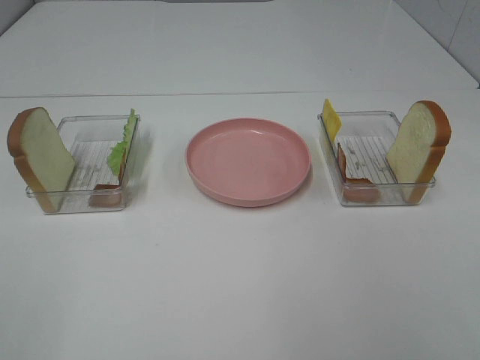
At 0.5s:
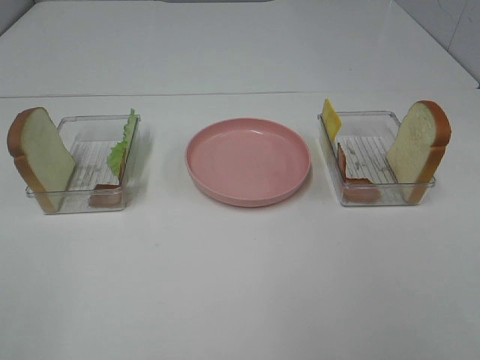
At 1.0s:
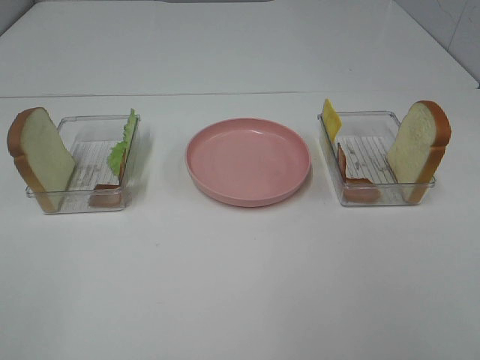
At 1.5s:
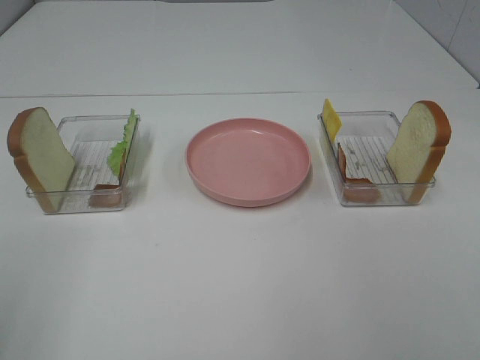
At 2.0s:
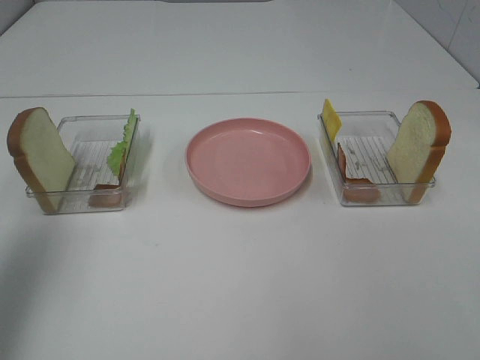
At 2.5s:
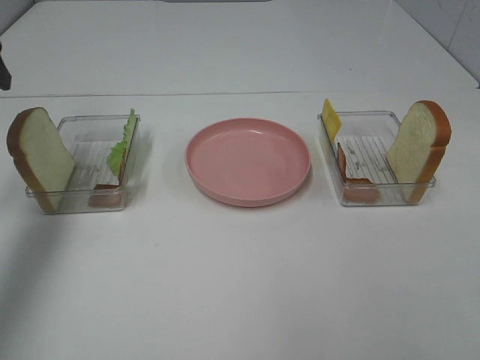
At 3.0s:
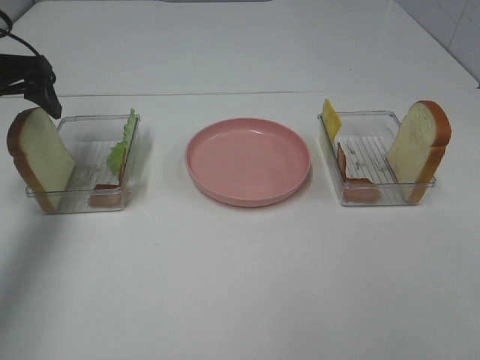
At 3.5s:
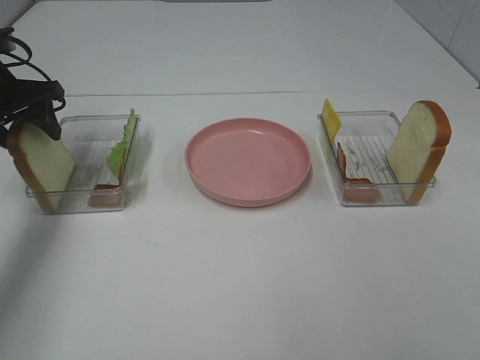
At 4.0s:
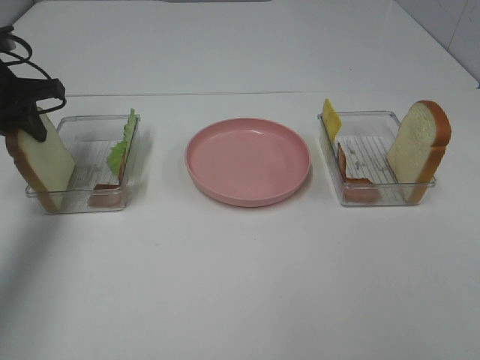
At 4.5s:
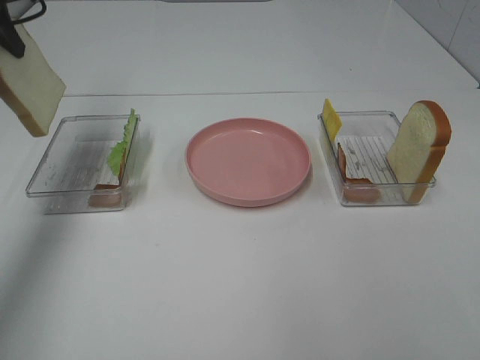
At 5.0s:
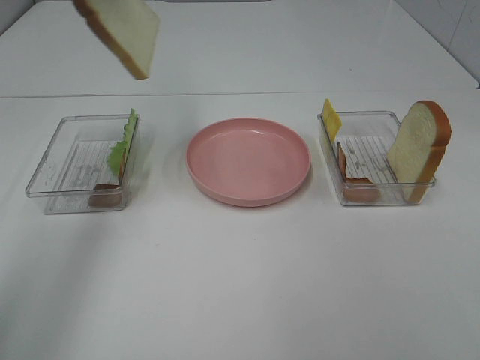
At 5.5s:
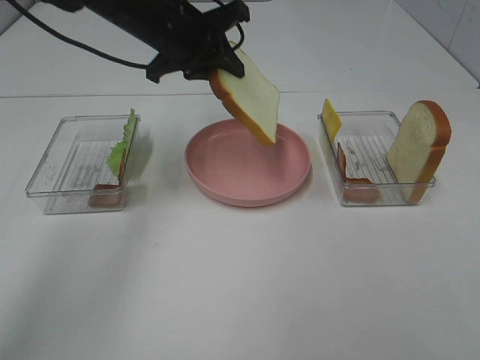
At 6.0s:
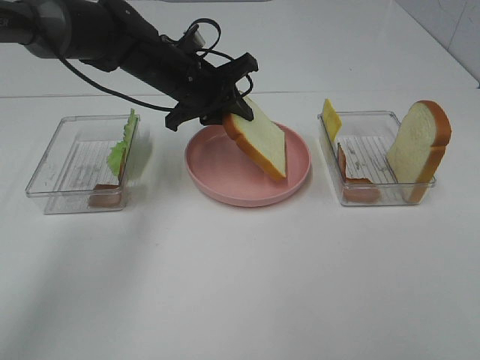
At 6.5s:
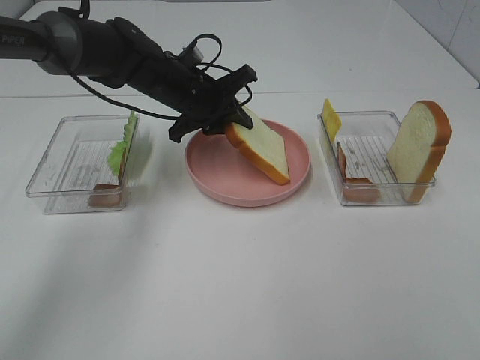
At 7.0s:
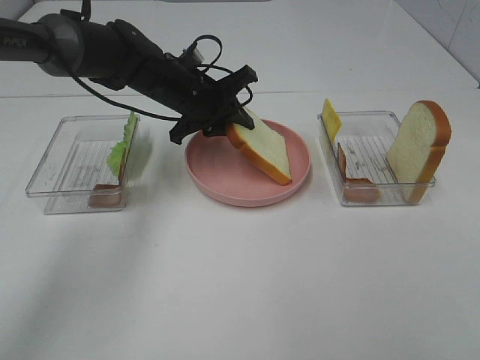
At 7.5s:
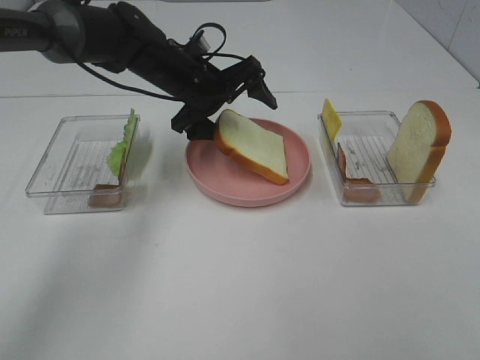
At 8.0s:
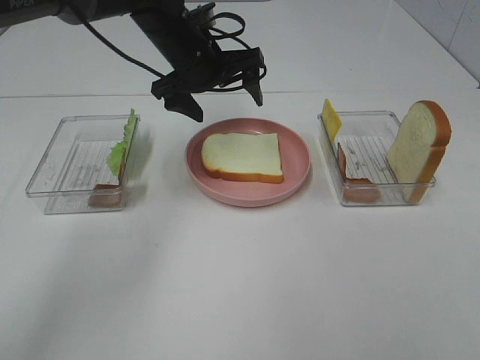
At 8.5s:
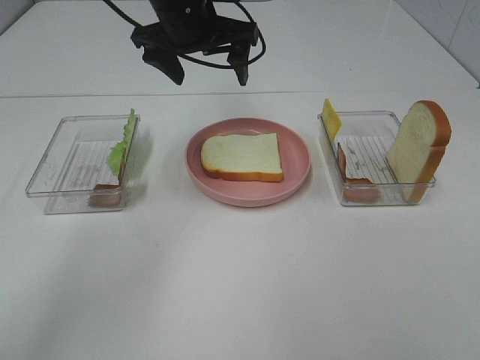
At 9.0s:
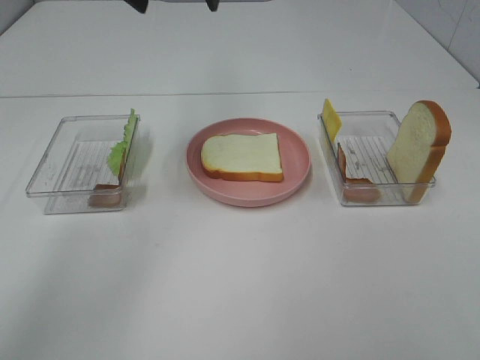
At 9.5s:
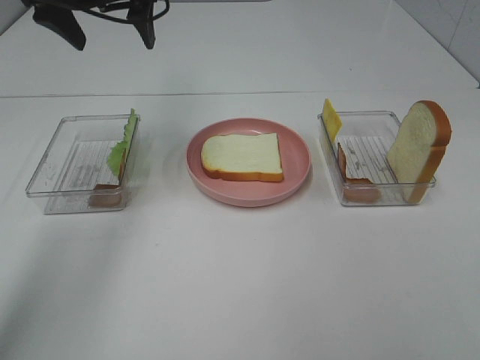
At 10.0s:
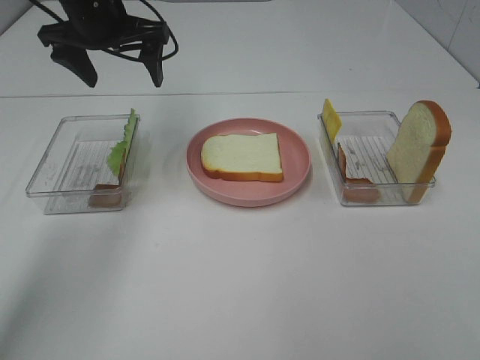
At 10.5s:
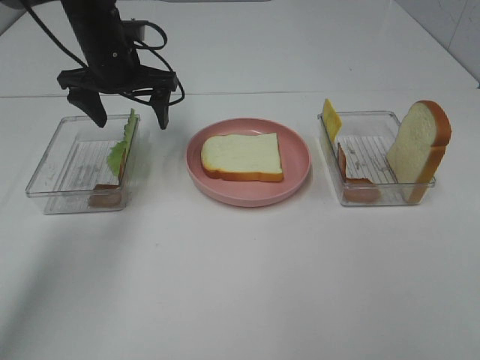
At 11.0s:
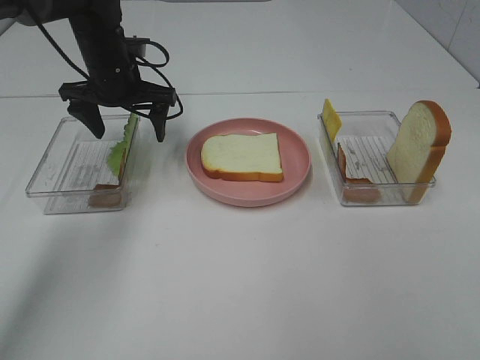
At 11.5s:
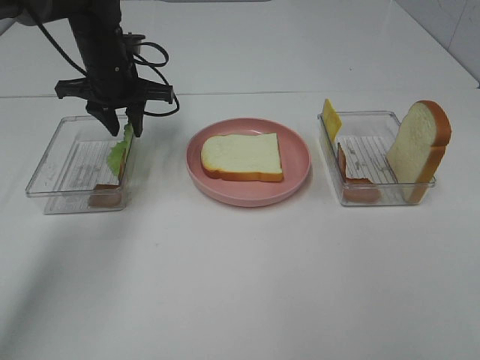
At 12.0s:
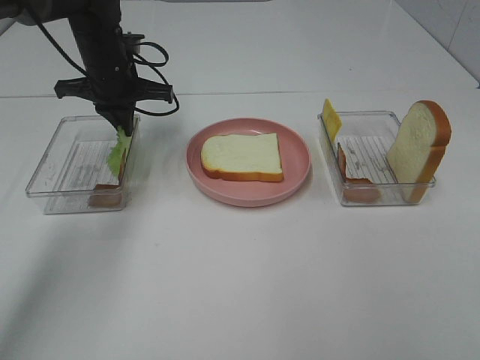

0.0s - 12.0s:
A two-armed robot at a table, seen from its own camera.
Task of the whole recording: Make sandwiches.
Step, 0.0s - 3.5s: Left hand:grab the bread slice.
Step, 4.0s - 8.0s: Left hand:place the bread slice on the plate.
Step, 8.5s - 11.5s: Left hand:grab the lettuce slice.
0.0s - 2.0s: The left gripper moves forward, some 20 cm.
2.0s - 4.0s: The left gripper heads forward and downward, covering about 25 cm, and closes its fingers.
4.0s - 6.0s: The left gripper moves to the right, some 25 cm.
6.0s - 8.0s: The left gripper opens.
8.0s - 10.0s: The left gripper shifts some 10 cm to the left and upward.
10.0s - 12.0s: The left gripper travels downward by some 10 cm, and closes its fingers.

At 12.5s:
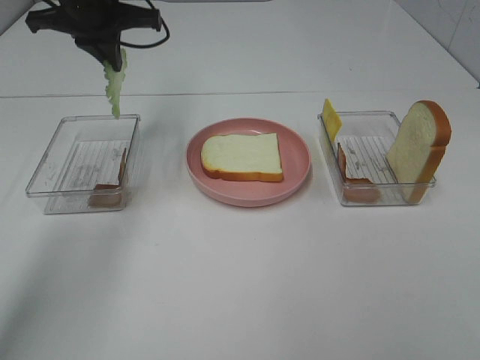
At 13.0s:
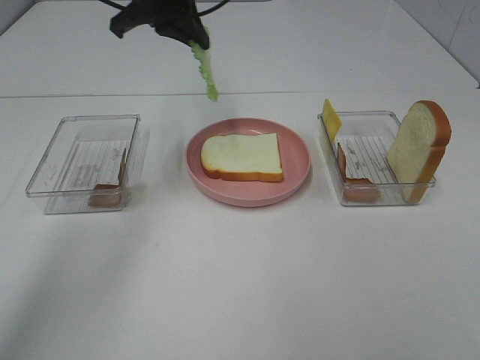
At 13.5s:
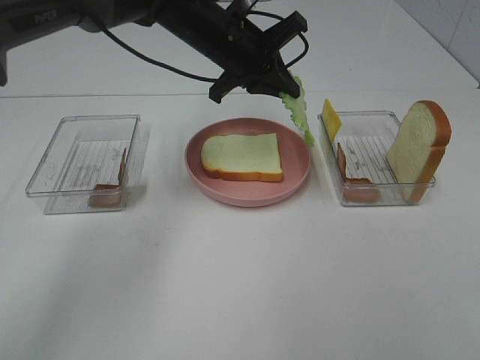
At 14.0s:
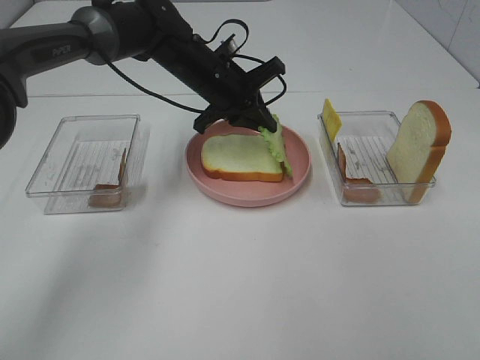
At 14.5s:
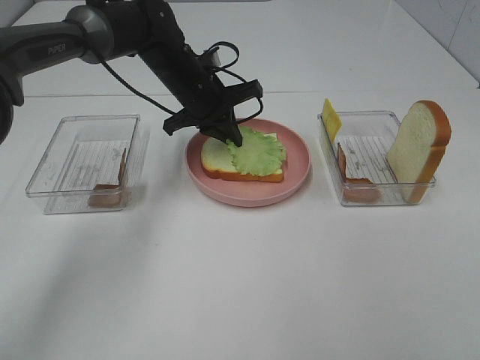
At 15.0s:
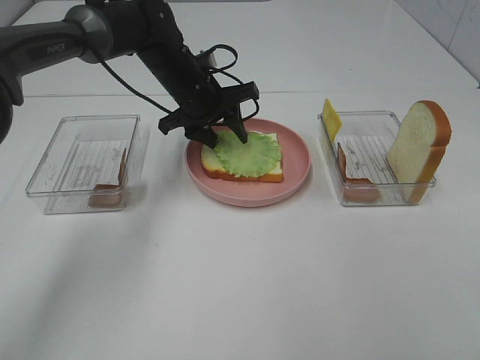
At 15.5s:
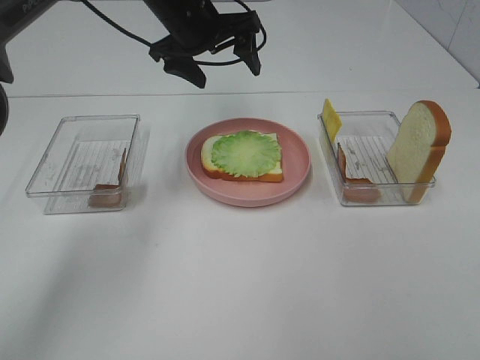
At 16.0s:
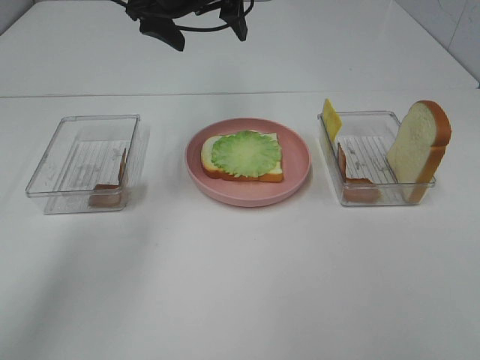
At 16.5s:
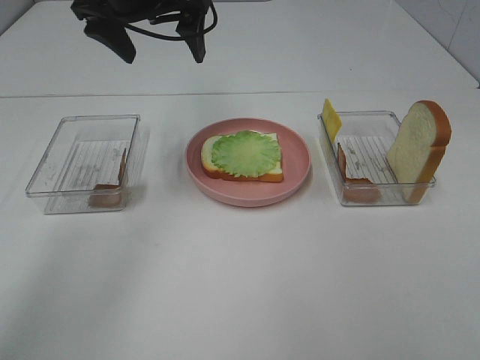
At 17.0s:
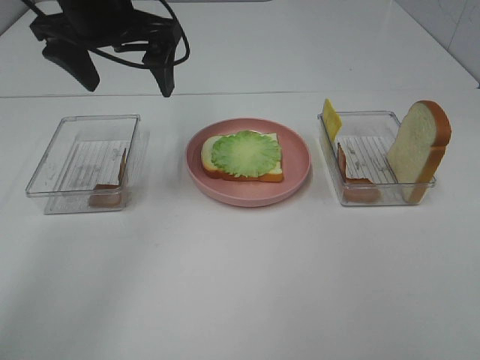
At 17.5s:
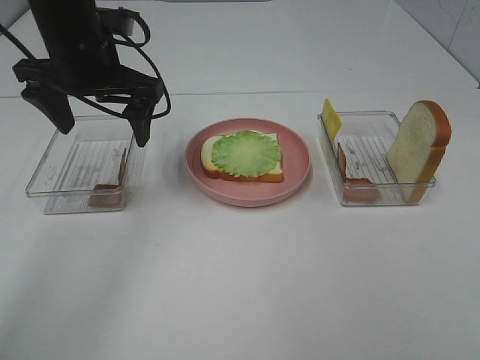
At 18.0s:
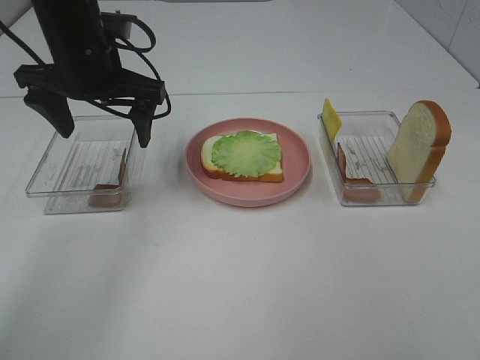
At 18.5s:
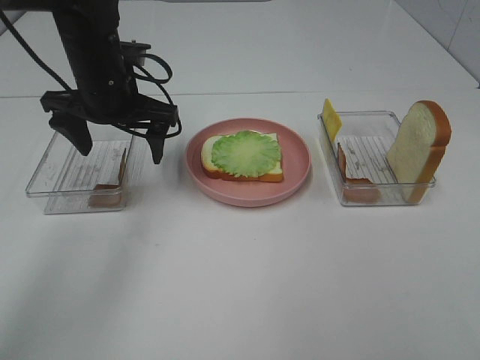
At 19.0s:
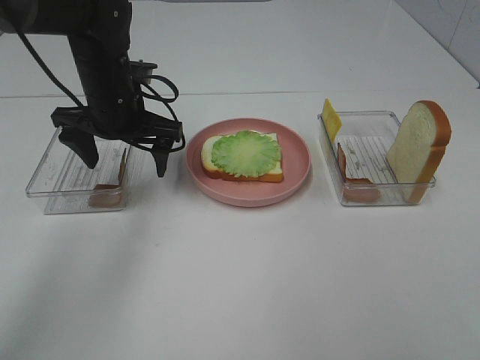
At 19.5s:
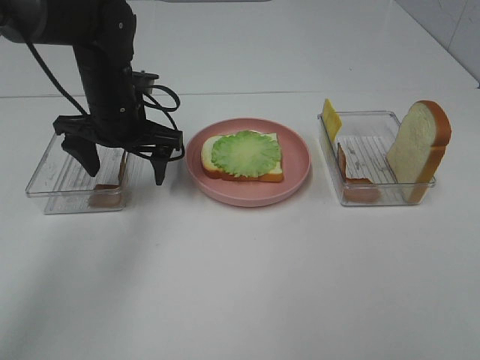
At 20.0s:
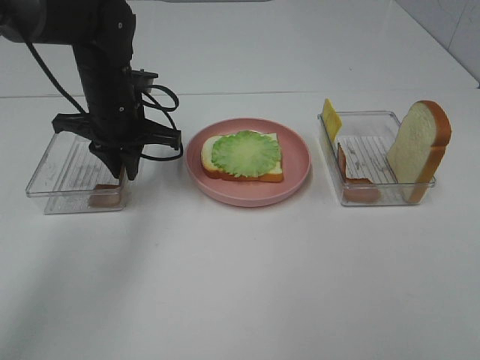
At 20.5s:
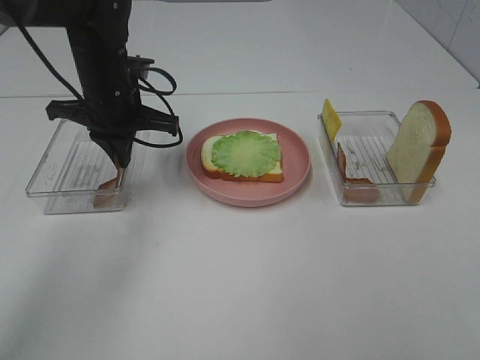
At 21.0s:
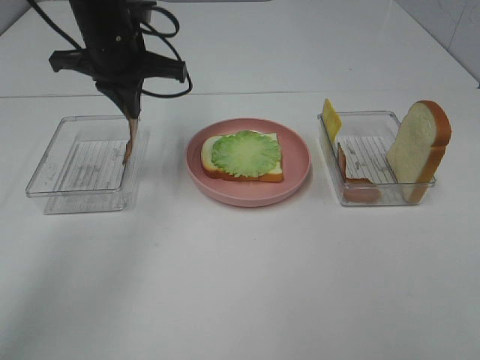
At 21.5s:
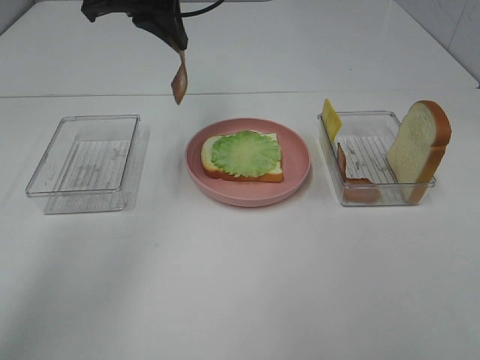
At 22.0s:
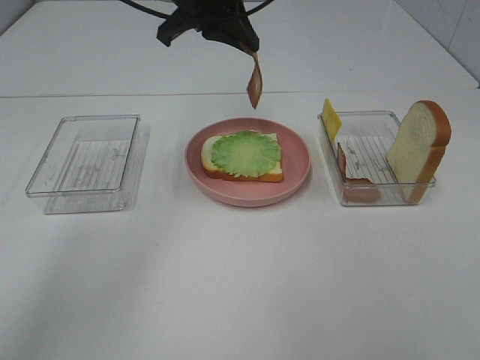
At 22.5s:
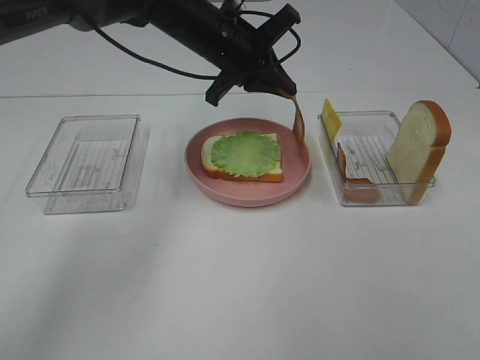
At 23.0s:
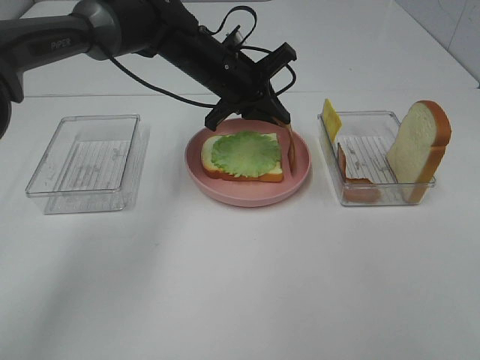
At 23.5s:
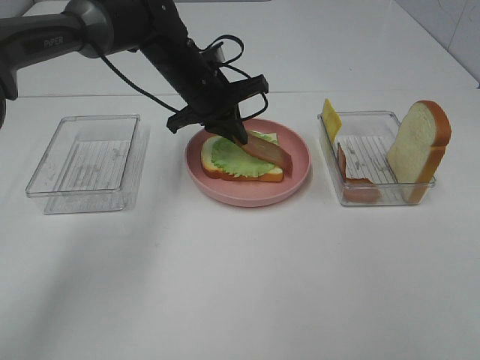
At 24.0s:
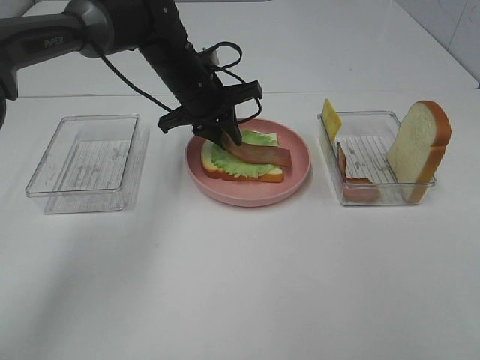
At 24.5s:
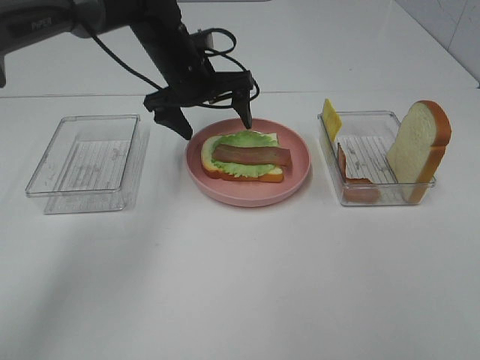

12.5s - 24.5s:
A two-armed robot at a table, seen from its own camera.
Task of the whole recording: Make sandwiches.
Step, 12.5s - 15.0s: Left hand:place the lettuce slice on the bread slice.
Step, 15.5s - 20.0s: Left hand:grab the bacon.
12.5s - 14.5s: The left gripper shifts some 15 cm downward and to the right.
14.5s - 16.5s: The left gripper is displaced upward by about 15 cm, and opens up.
16.5s - 18.5s: The left gripper travels downward by some 10 cm.
18.5s - 20.5s: The left gripper closes.
20.5s - 22.5s: The left gripper goes approximately 10 cm to the right, and goes upward and returns, some 15 cm each way.
22.5s - 24.5s: The left gripper ends up approximately 5 cm from where it was, and opens up.

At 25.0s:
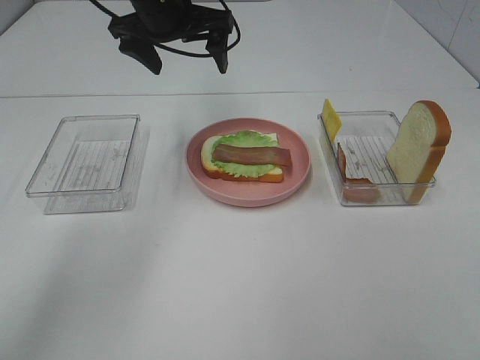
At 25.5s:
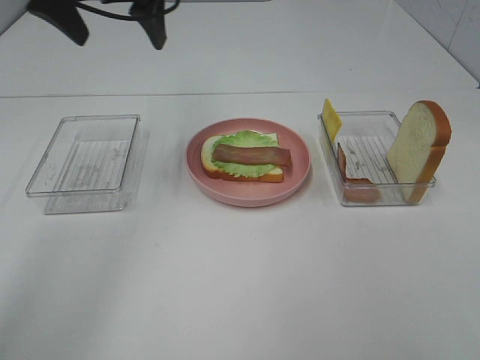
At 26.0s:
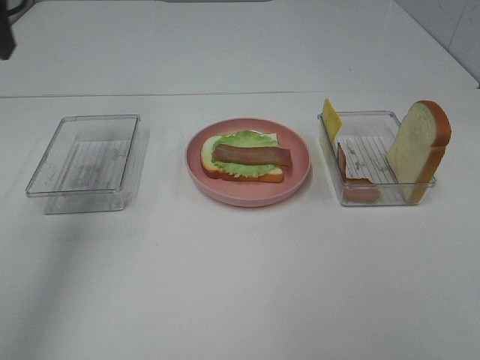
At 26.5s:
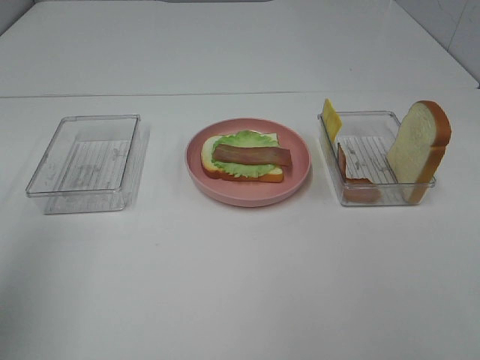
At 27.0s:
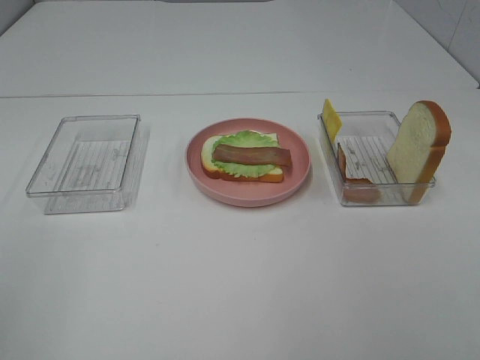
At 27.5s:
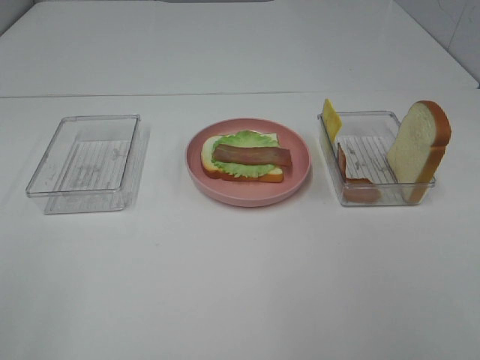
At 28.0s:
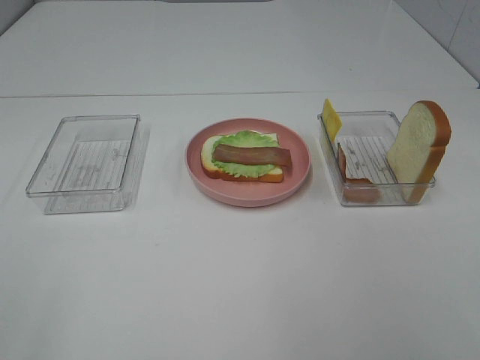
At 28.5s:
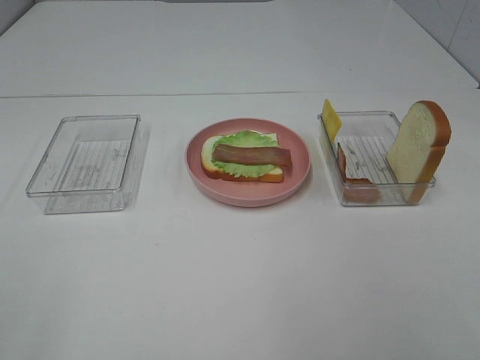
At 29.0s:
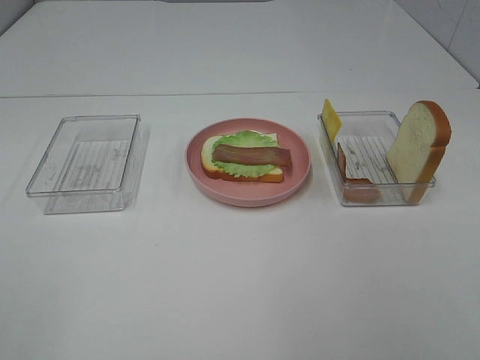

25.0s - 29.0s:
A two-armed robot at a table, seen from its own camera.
Task of the whole recording: Make sandwiches.
25.0s - 27.0s: The left gripper heads backward and to the left, covering about 50 cm.
